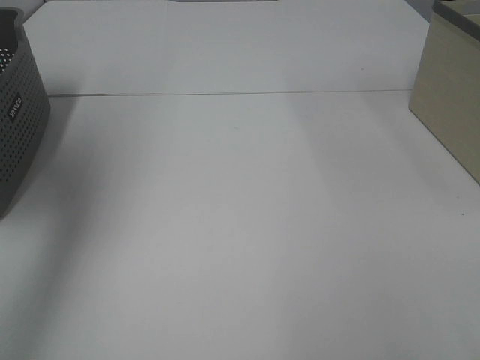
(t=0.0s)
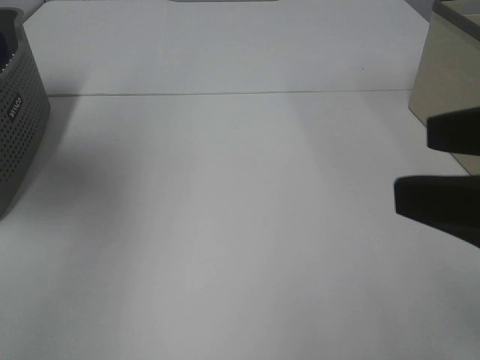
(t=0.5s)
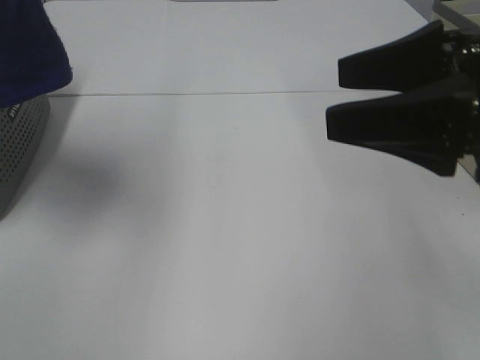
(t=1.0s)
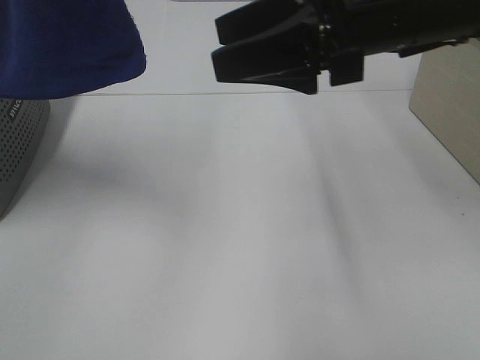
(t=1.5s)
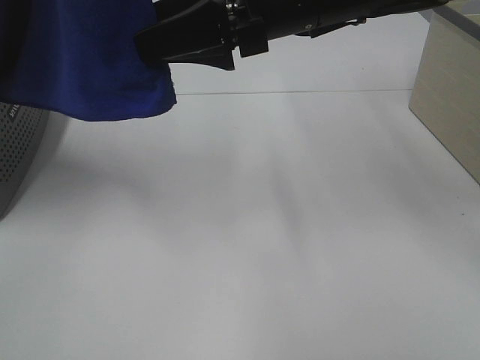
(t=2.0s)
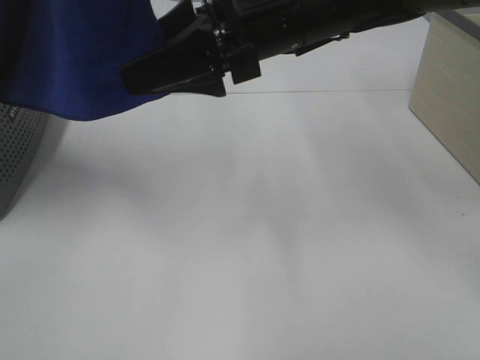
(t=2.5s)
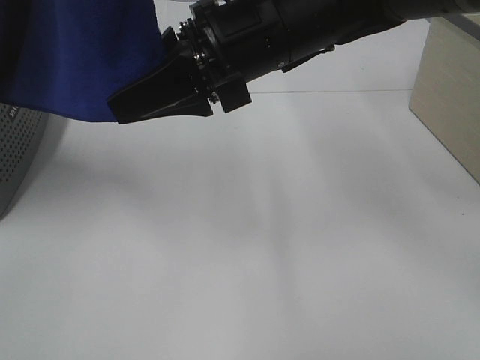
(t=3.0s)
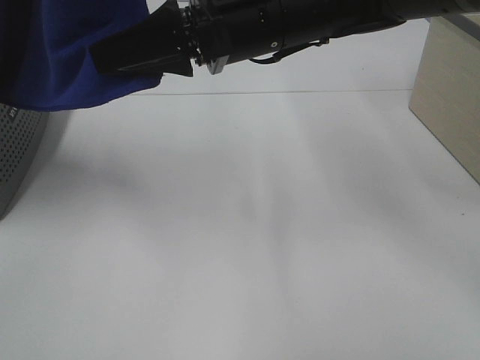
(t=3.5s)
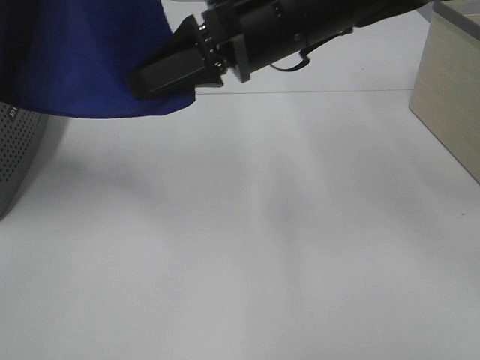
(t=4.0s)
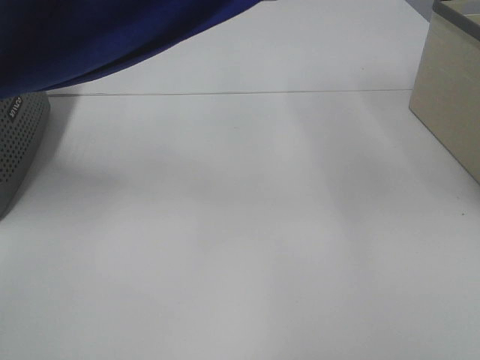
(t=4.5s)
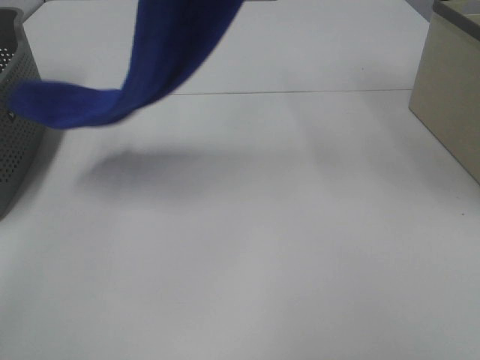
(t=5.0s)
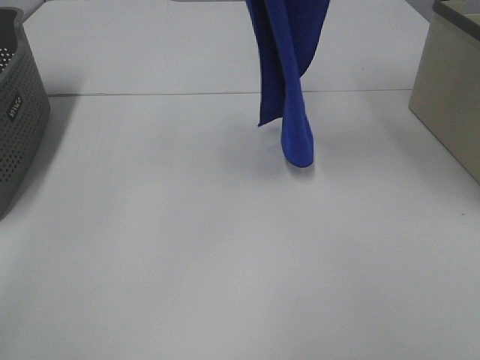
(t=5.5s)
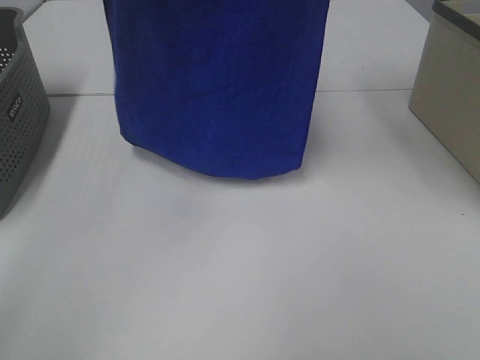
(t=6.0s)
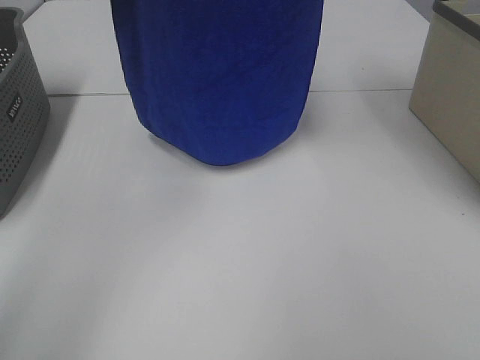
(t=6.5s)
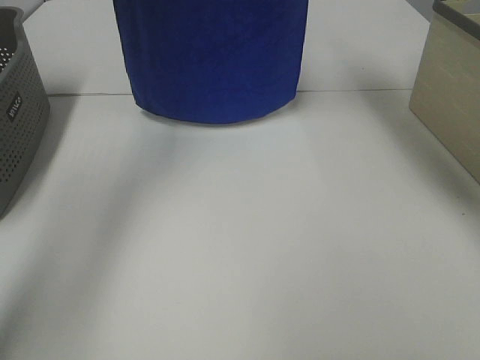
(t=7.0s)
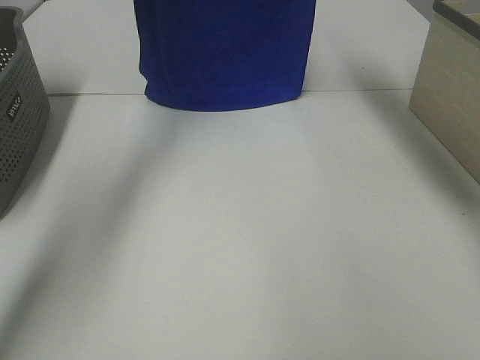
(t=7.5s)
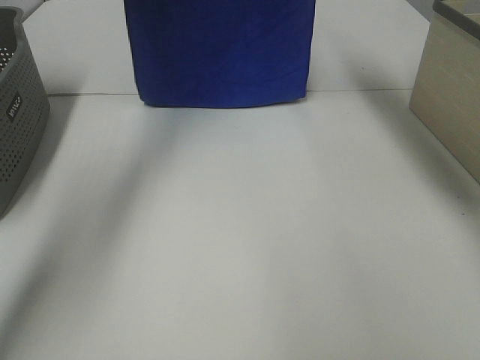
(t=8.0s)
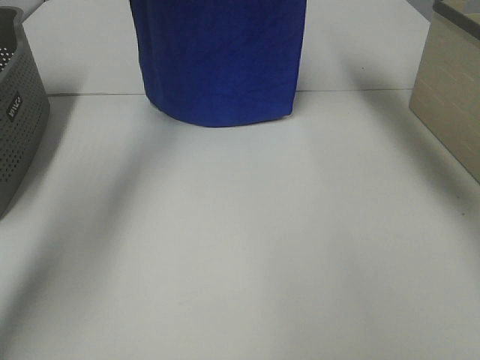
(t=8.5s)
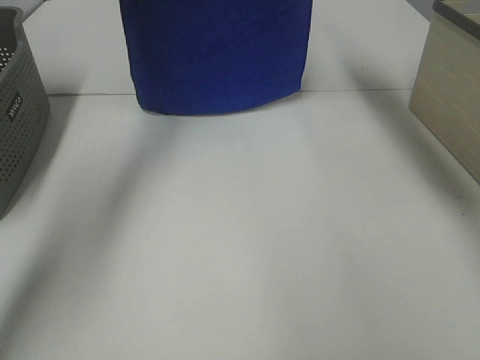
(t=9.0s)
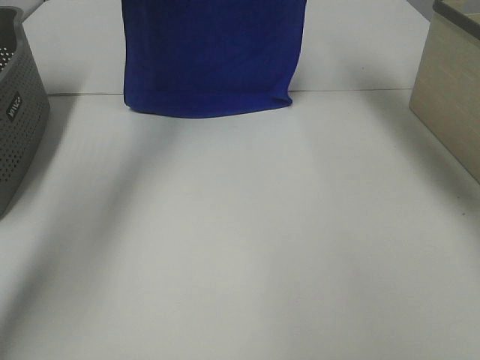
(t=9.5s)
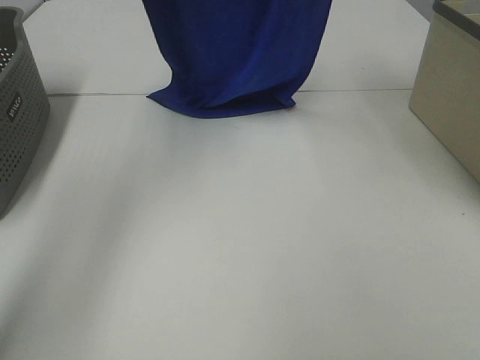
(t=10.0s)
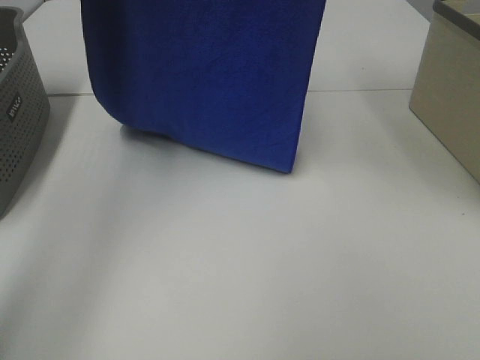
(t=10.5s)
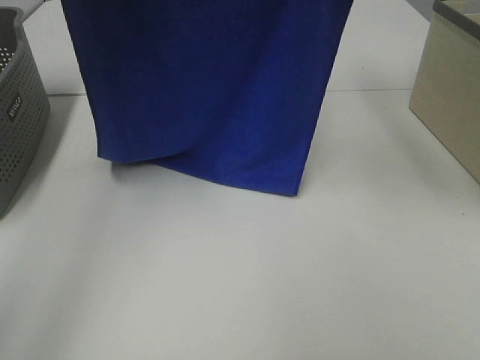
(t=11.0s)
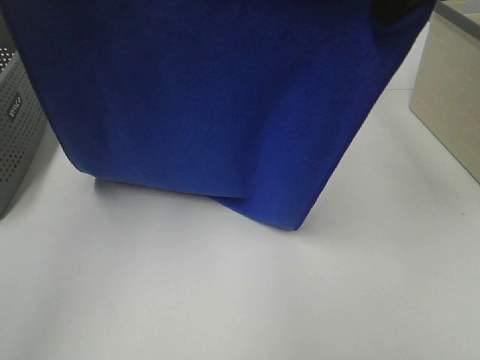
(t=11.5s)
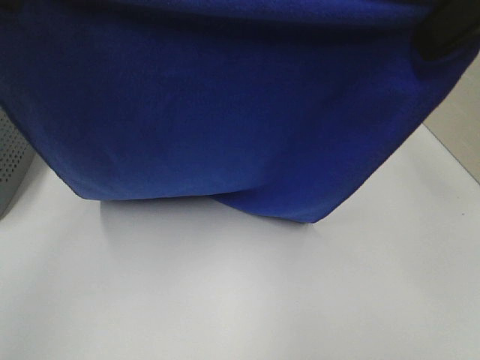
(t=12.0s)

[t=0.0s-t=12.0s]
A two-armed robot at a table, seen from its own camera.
Task of the whole recording: Remove the towel and place it.
Step, t=0.0s to t=4.5s: Right hand: grab a corner of the blue towel and straighten it.
Step, t=5.0s to t=11.5s: Left hand: spread the blue towel flat on the table.
Step, t=5.0s to t=11.5s: Right hand: spread the blue towel flat on the table.
t=0.0s to t=2.0s: The left gripper goes roughly 15 cm to the right. Meanwhile the right gripper heads forward and to the left, covering some 40 cm.
t=2.0s to t=4.0s: The right gripper closes its fingers.
t=4.0s to t=6.0s: The left gripper shifts about 15 cm forward, while the right gripper travels upward and to the right by approximately 25 cm.
t=6.0s to t=8.0s: The two grippers go about 20 cm forward and downward.
t=8.0s to t=10.0s: The two grippers go roughly 10 cm backward.
t=10.0s to t=12.0s: The left gripper goes about 20 cm backward. Meanwhile the right gripper is displaced backward and downward by approximately 20 cm.

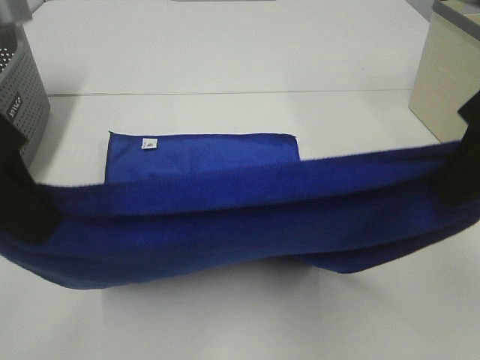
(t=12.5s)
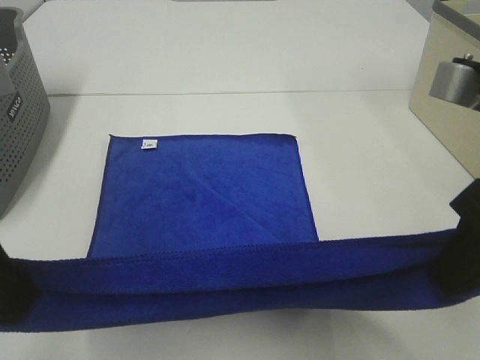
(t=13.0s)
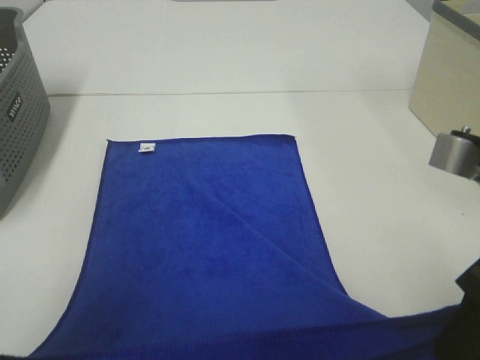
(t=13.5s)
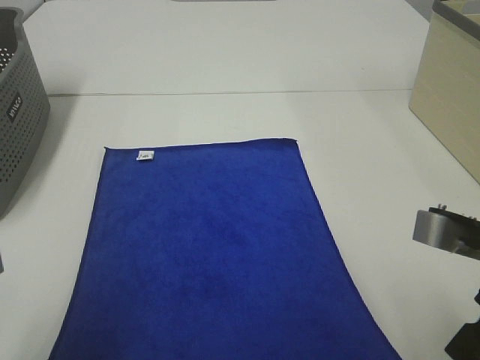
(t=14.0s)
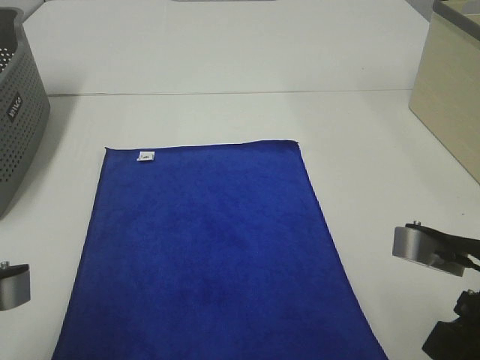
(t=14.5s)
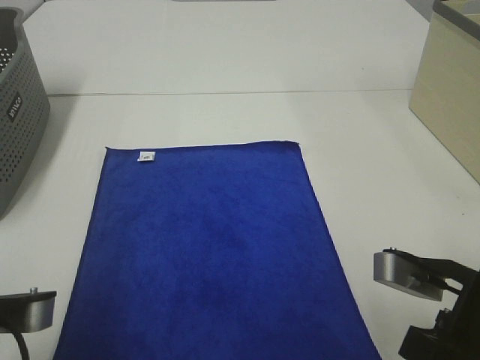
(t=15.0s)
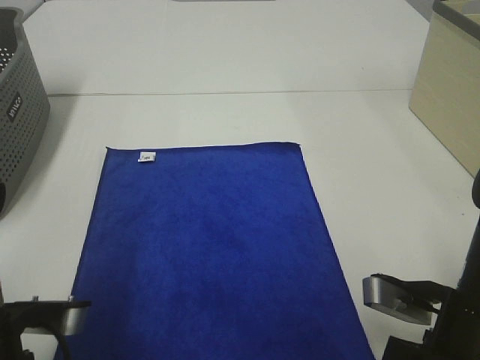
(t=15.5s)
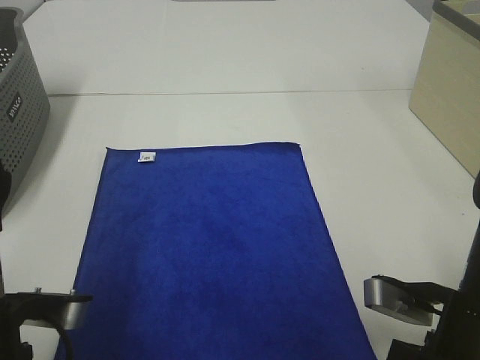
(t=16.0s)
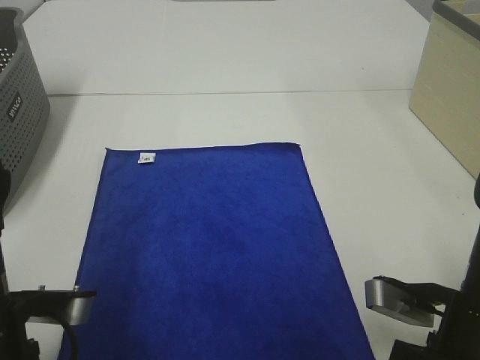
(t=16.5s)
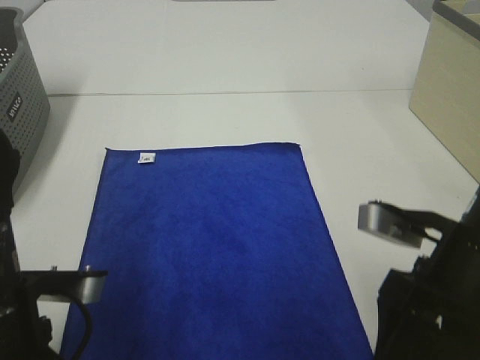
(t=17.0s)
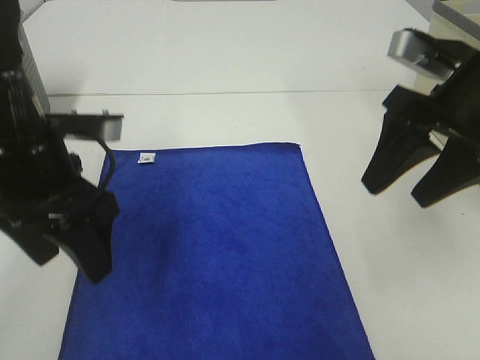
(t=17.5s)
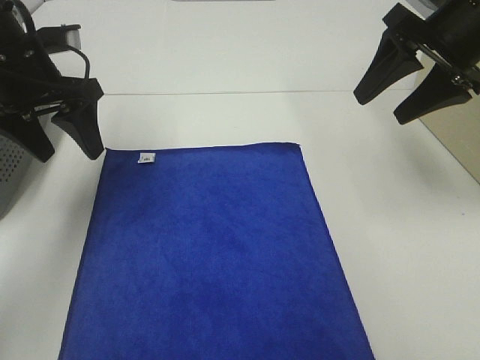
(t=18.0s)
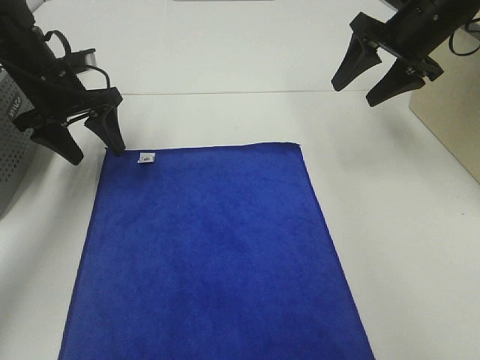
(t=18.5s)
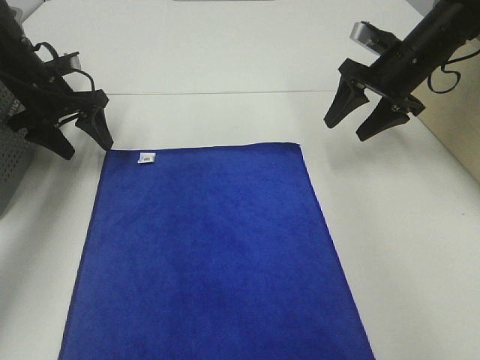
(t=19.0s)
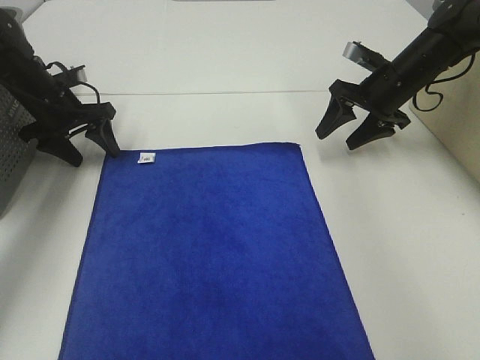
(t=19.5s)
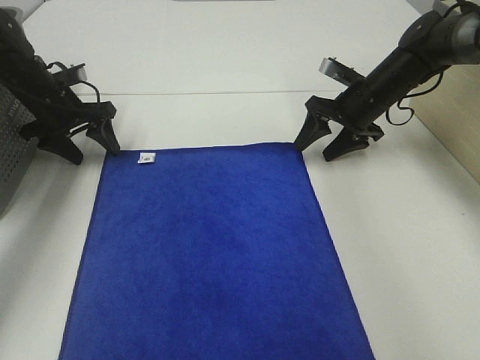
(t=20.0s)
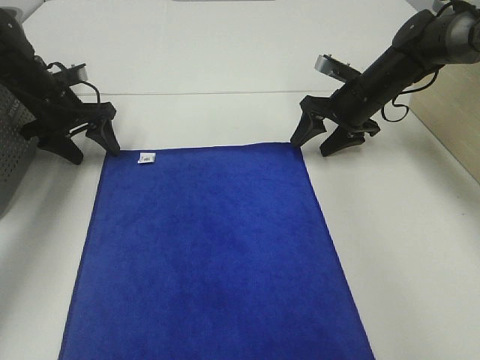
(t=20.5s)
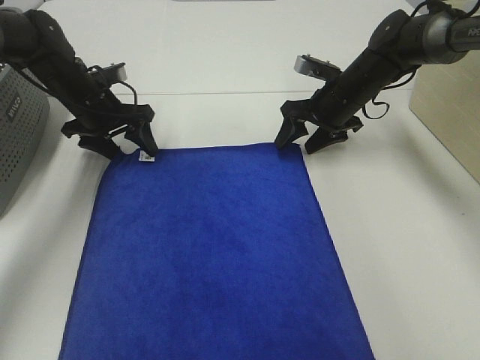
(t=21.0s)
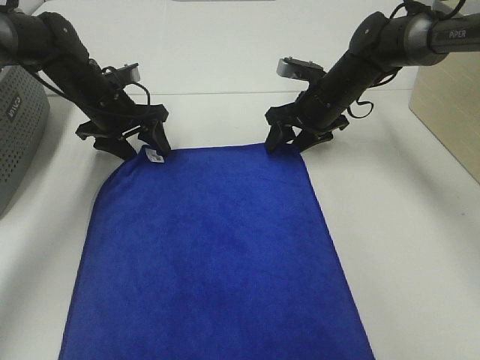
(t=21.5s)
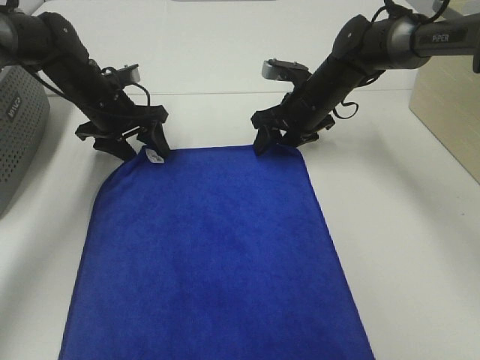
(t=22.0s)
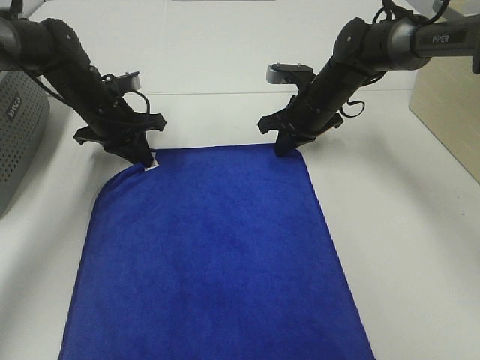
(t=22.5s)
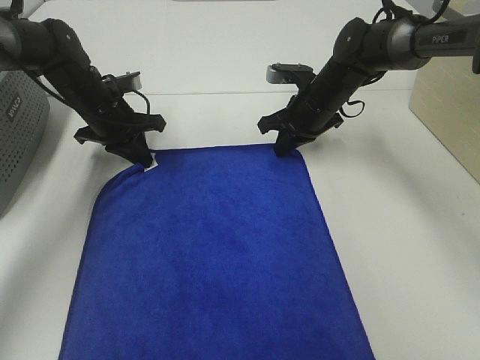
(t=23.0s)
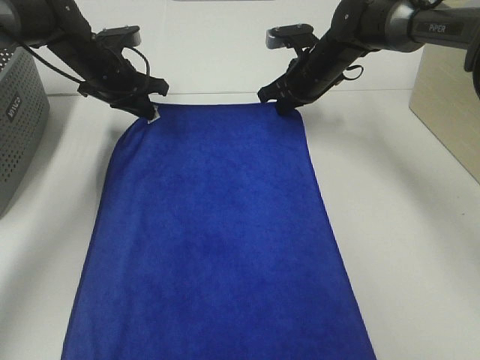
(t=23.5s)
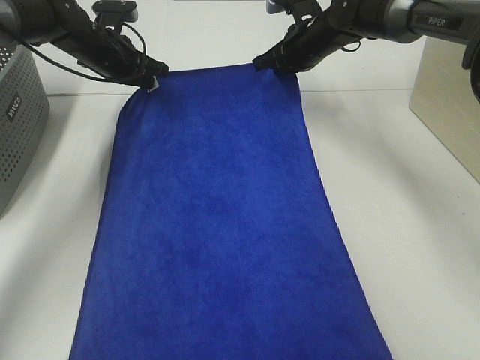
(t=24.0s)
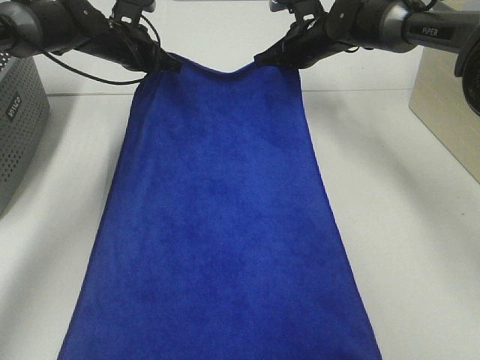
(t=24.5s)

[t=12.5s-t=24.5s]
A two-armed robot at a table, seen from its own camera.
Task of the whole recording: Remove the towel and place it.
Step, t=12.5s to t=19.5s: Left hand:adjust the blue towel.
Step, t=12.5s to t=19.5s: Right hand:adjust the blue towel.
t=12.5s to t=14.5s: The left gripper shifts some 15 cm downward and backward, while the right gripper heads downward, covering some 15 cm.
t=14.5s to t=16.5s: The two grippers go about 5 cm downward. The left gripper opens up. The right gripper opens.
t=16.5s to t=18.5s: Both grippers move forward, roughly 30 cm.
t=18.5s to t=20.5s: The right gripper heads downward, covering approximately 15 cm, while the left gripper shifts roughly 5 cm downward.
t=20.5s to t=22.5s: The left gripper shifts roughly 10 cm to the right, and closes; the right gripper heads to the left, covering approximately 5 cm, and closes.
t=22.5s to t=24.5s: Both grippers travel together forward and upward, roughly 10 cm.

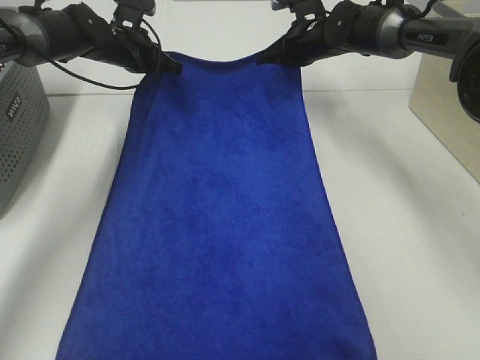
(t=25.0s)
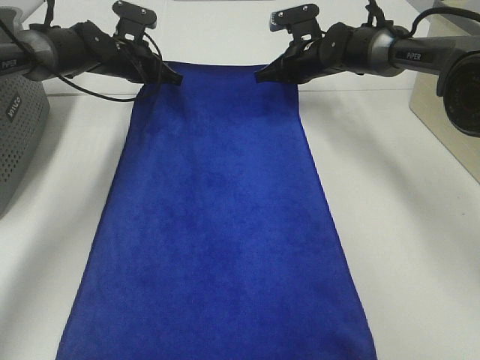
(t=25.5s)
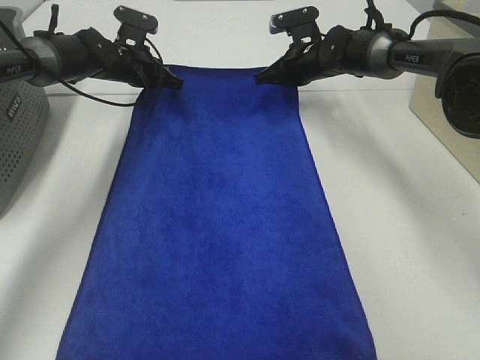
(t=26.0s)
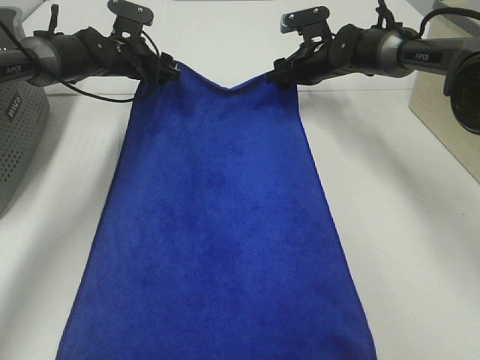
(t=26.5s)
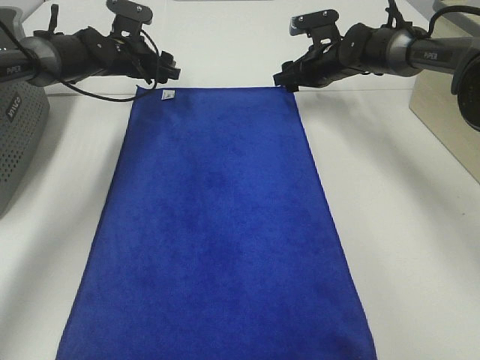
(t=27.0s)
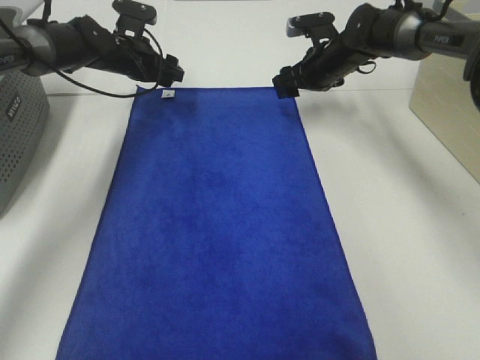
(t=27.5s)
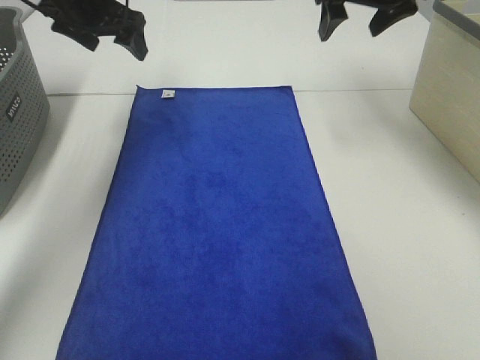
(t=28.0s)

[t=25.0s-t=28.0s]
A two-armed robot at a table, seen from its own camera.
Task of the whole recording: Remove the towel and place it.
t=25.0s to t=26.5s: The left gripper opens its fingers; the right gripper opens.
t=26.5s to t=28.0s: The grippers both shift upward and backward by approximately 20 cm.
